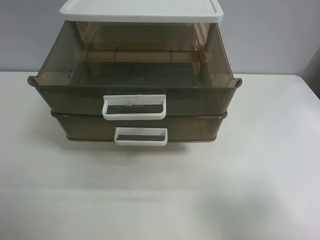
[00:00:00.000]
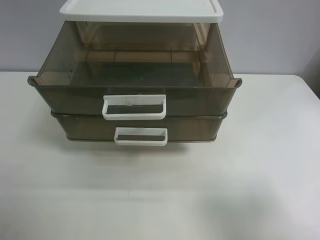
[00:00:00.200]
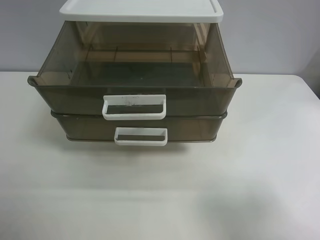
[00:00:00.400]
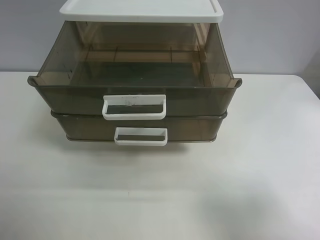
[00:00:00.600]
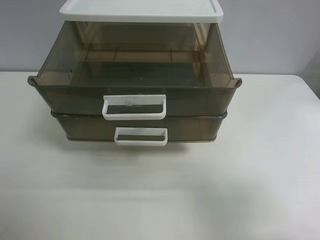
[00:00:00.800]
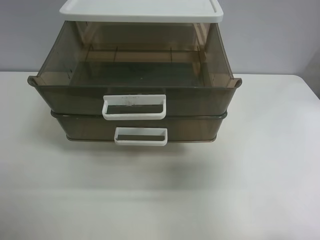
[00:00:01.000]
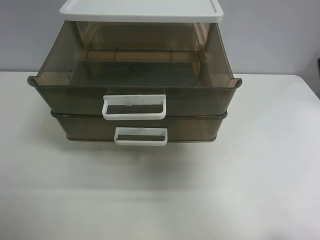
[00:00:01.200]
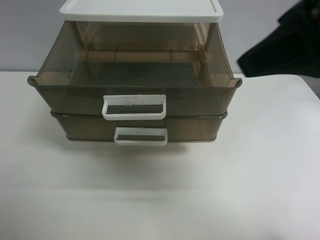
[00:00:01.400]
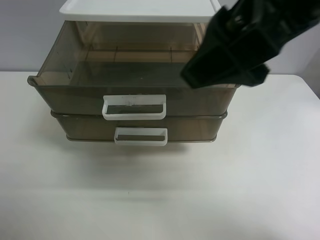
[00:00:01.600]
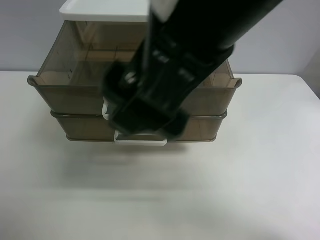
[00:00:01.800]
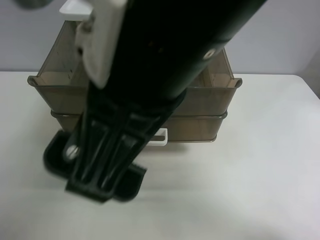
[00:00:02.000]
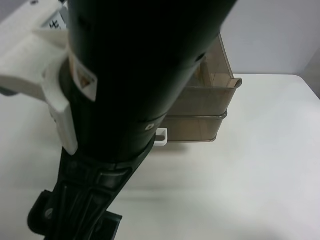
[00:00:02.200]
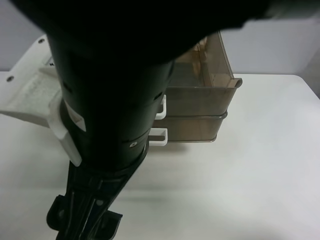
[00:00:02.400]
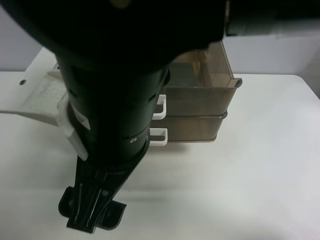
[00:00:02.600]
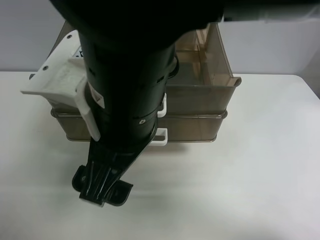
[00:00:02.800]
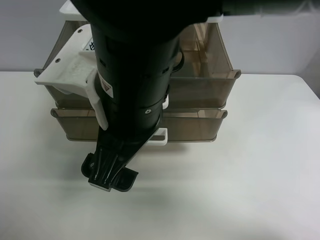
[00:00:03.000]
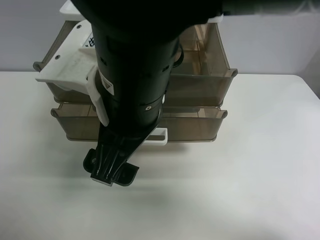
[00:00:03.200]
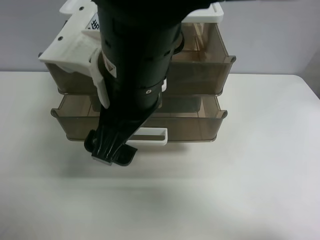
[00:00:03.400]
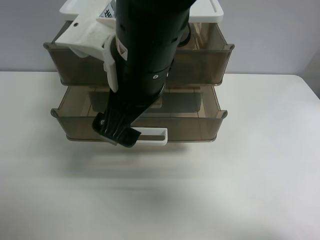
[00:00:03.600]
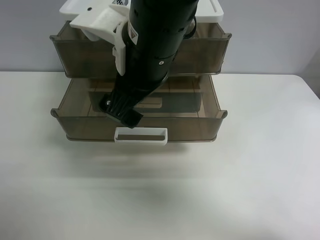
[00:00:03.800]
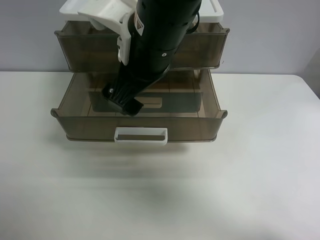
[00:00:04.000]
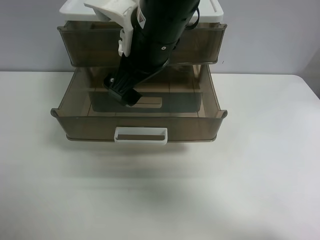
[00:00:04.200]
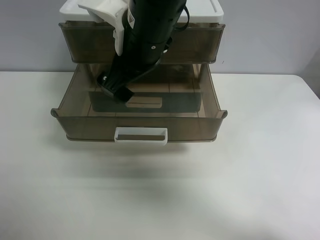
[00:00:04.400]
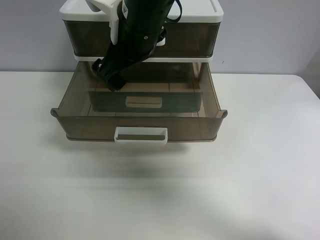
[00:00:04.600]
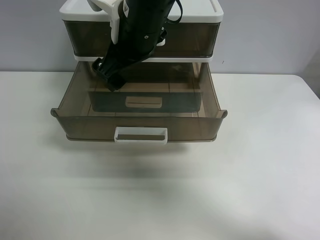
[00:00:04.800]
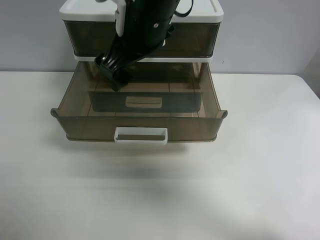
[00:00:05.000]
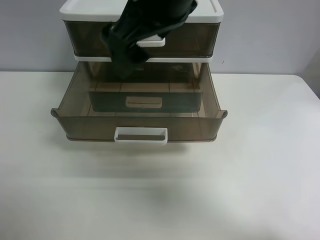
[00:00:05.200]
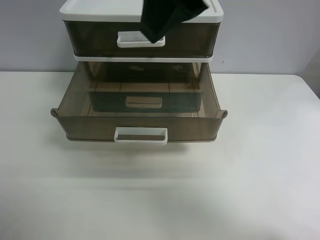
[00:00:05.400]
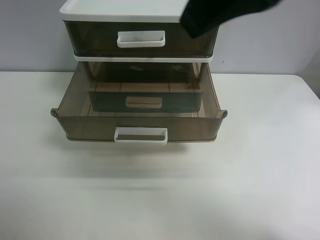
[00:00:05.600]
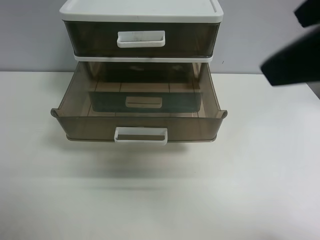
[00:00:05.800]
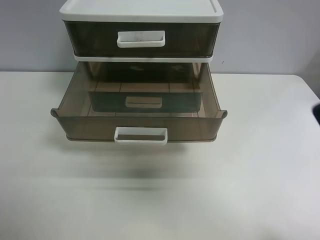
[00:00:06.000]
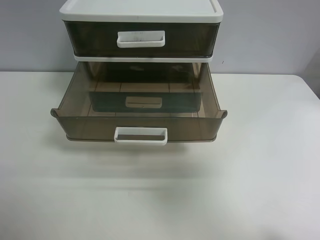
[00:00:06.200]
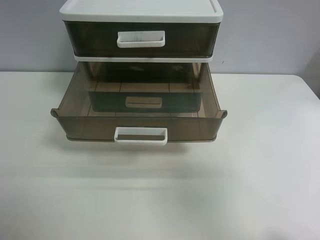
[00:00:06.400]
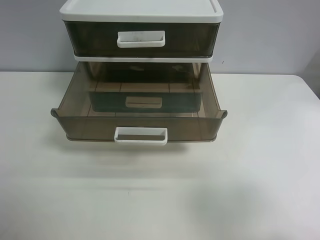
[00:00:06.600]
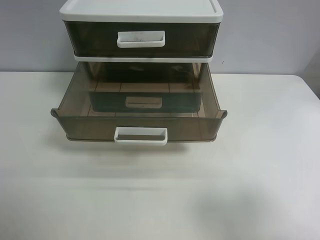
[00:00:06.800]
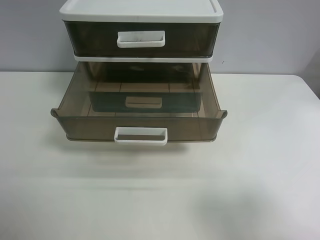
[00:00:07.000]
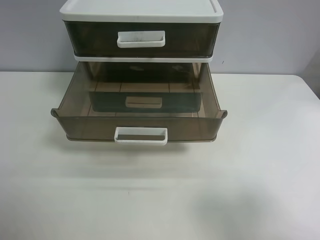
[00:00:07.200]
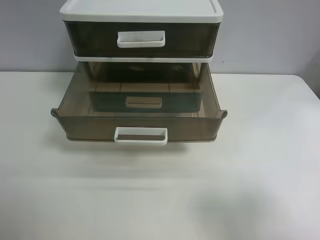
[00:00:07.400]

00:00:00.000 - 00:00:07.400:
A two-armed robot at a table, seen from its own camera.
Task of the whole recording: close the top drawer.
Step, 00:00:00.000 - 00:00:02.600: Use the right gripper to touch the topmost layer of the storage cabinet.
Step, 00:00:02.800 - 00:00:04.800: Push the top drawer closed.
00:00:00.000 - 00:00:01.400: The right gripper goes about 25 cm forward, to the left and upward.
00:00:01.400 - 00:00:03.000: The right gripper heads to the left and downward, covering some 20 cm.
00:00:03.000 - 00:00:04.400: The right gripper travels forward by approximately 10 cm.
00:00:04.400 - 00:00:06.000: The right gripper heads to the right and backward, covering approximately 30 cm.
00:00:06.000 - 00:00:07.400: The right gripper is displaced downward, backward and to the right by approximately 15 cm.
